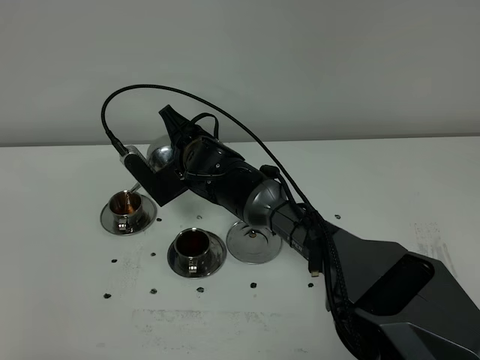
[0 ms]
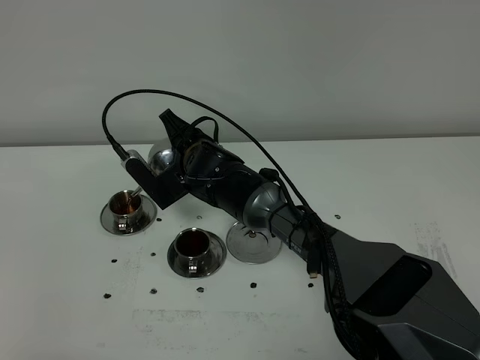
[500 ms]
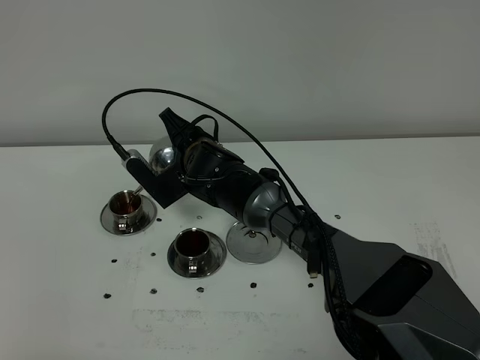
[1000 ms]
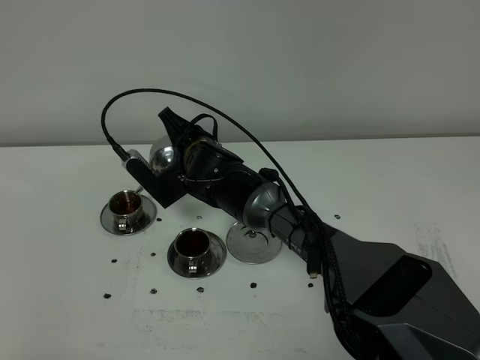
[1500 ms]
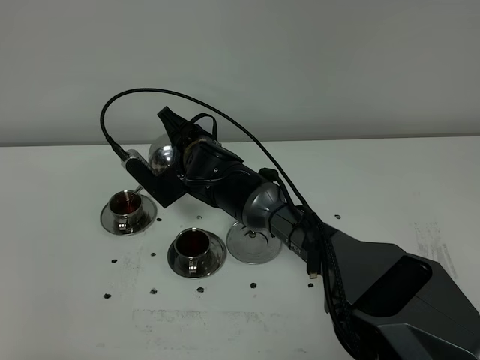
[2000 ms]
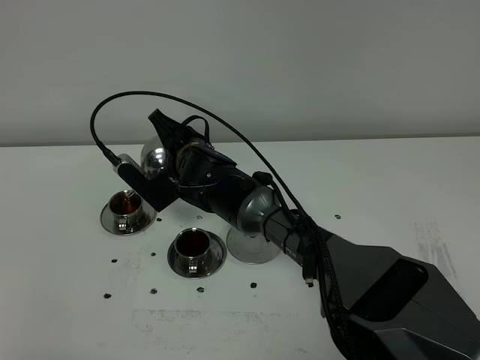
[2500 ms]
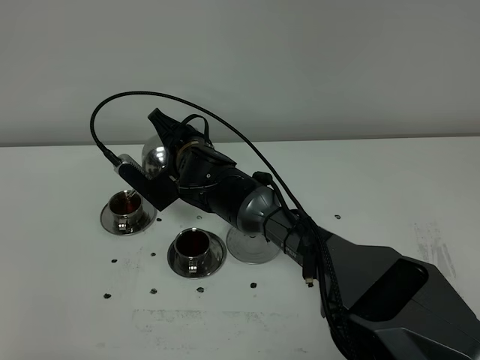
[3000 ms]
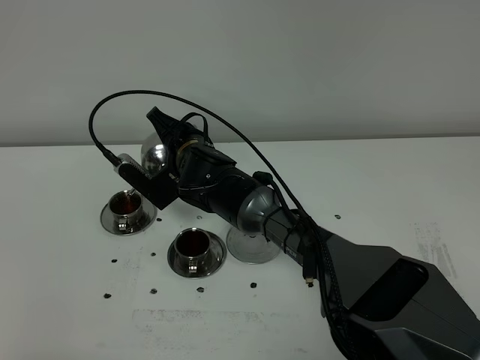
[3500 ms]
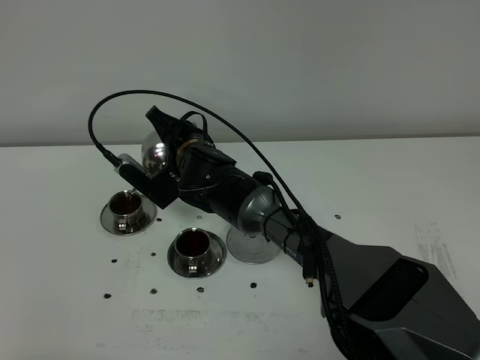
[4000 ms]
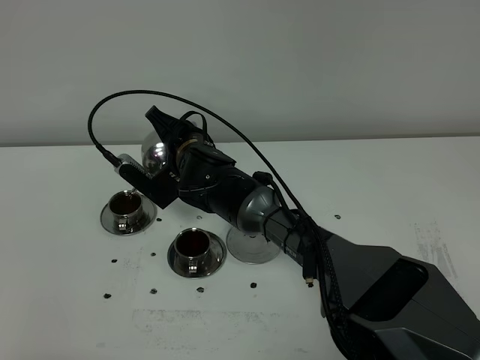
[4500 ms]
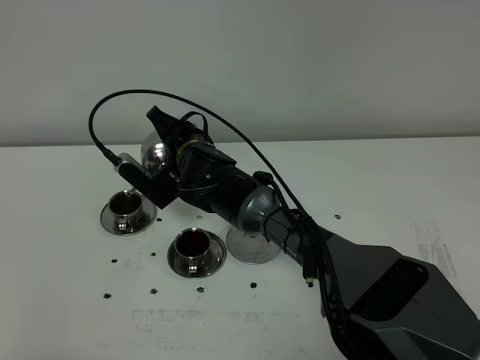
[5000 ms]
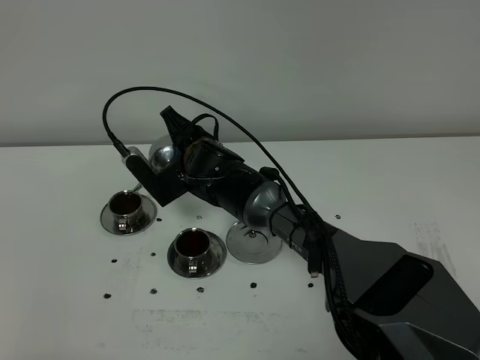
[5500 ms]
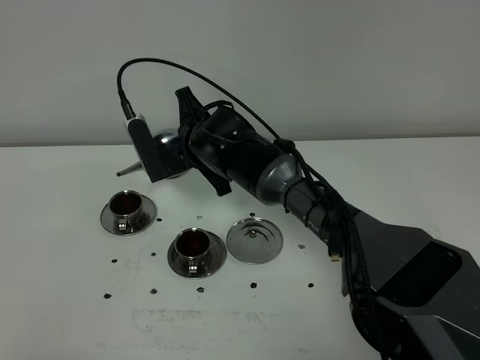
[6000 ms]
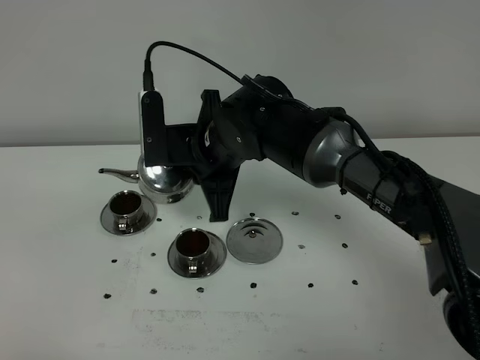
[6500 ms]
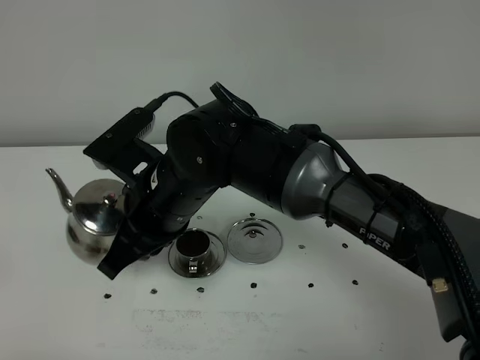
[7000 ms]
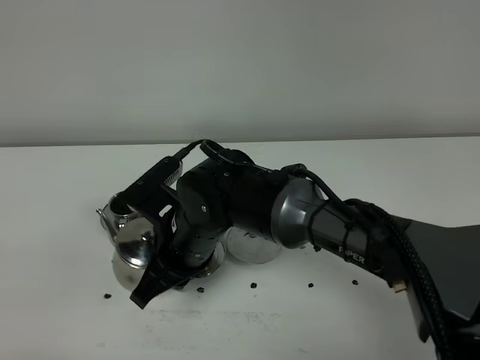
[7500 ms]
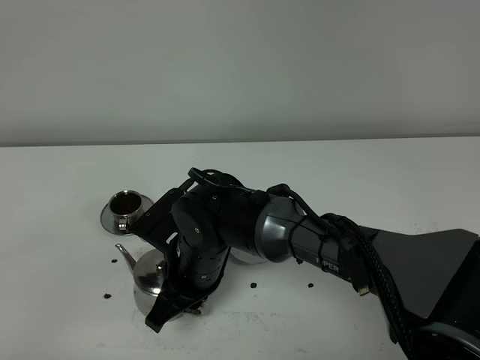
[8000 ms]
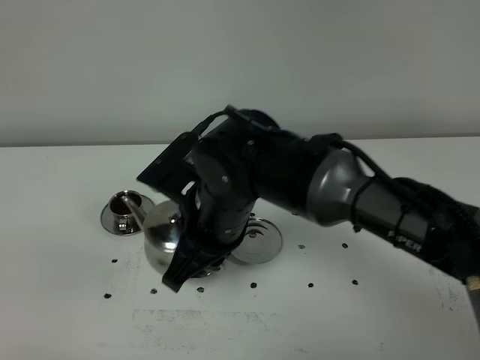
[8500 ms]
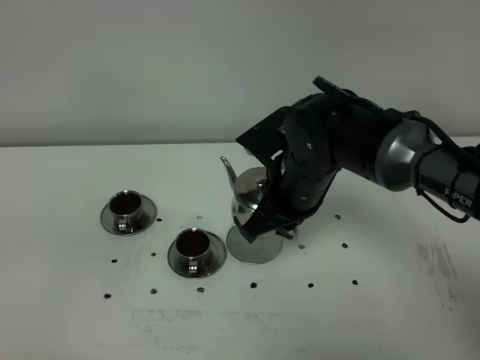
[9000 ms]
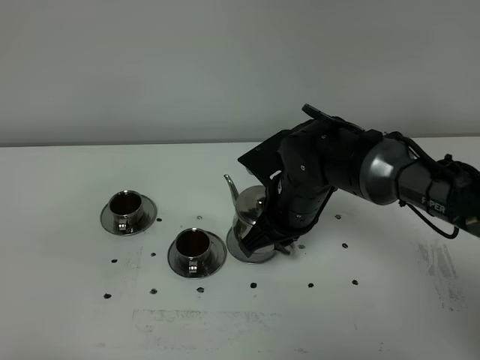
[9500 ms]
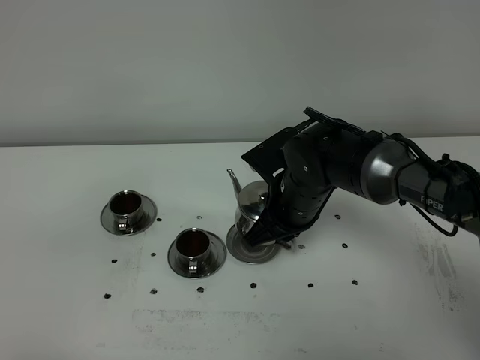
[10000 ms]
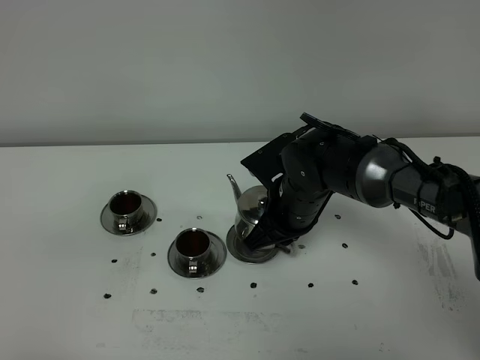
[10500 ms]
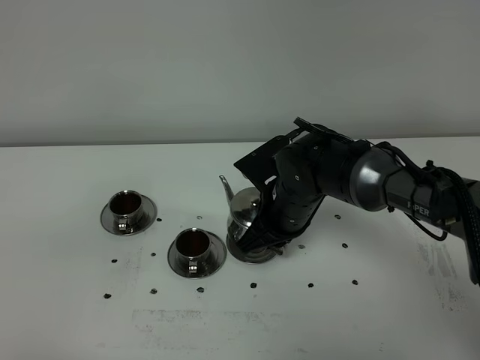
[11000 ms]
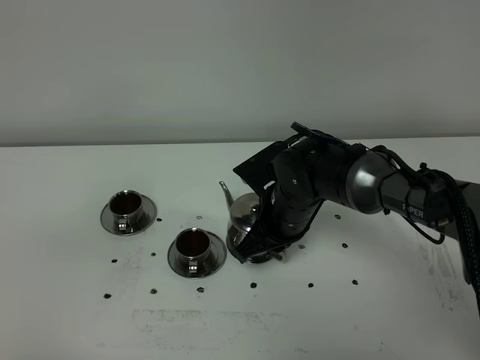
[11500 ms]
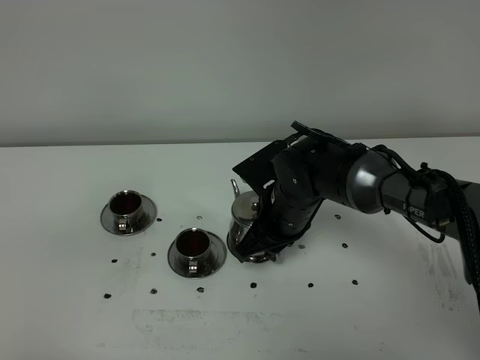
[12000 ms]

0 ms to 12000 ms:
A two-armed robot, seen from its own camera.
Task of the whole recording: grasp the stainless steel teapot and pour the tea into the two stainless steel teacups one by one, put the stainless steel teapot back in its original place.
0 ms to 2000 ms: The two grippers keep their place.
2000 ms to 4000 ms: There are only small adjustments of the grippers.
4000 ms to 6000 ms: The right gripper shifts by approximately 5 cm.
6000 ms to 8000 ms: The right gripper goes some 15 cm backward.
8000 ms to 10000 ms: The right gripper heads to the right and forward, covering about 15 cm.
10000 ms to 12000 ms: The grippers make only small movements.

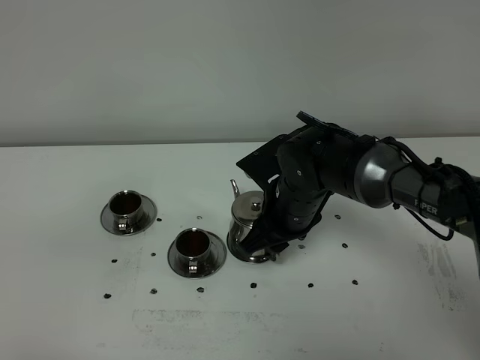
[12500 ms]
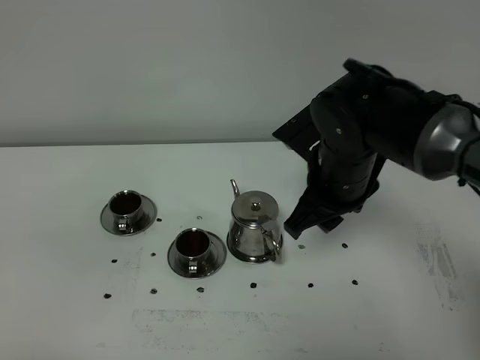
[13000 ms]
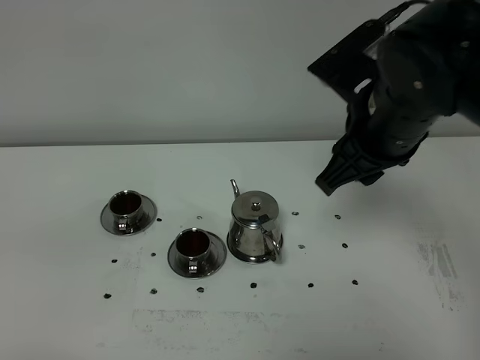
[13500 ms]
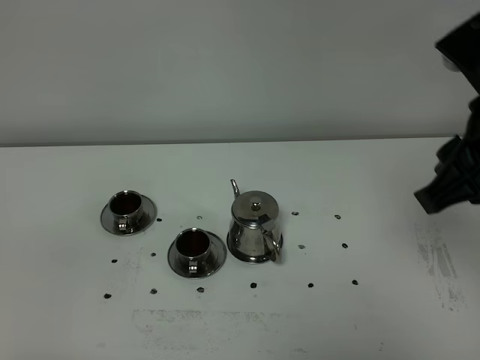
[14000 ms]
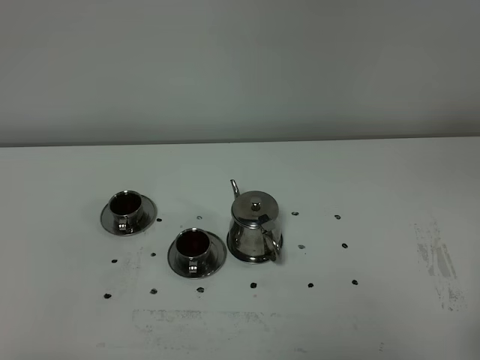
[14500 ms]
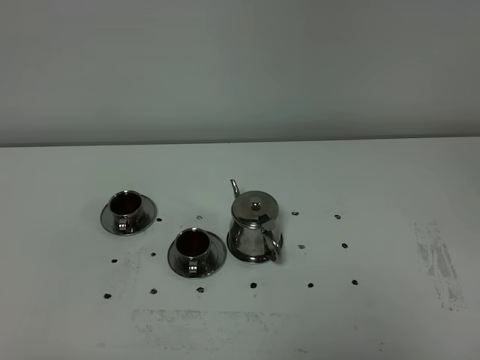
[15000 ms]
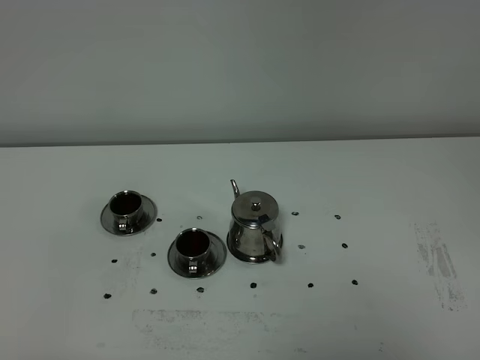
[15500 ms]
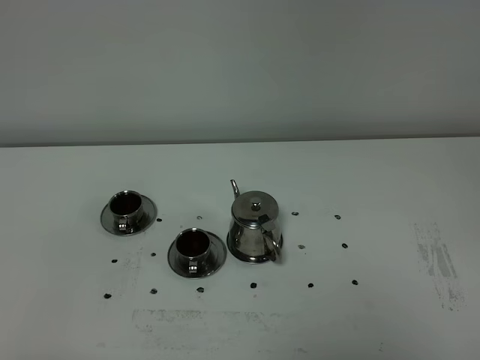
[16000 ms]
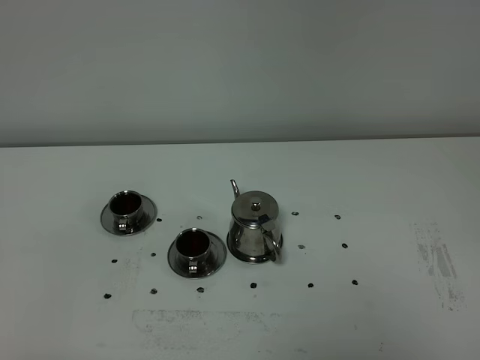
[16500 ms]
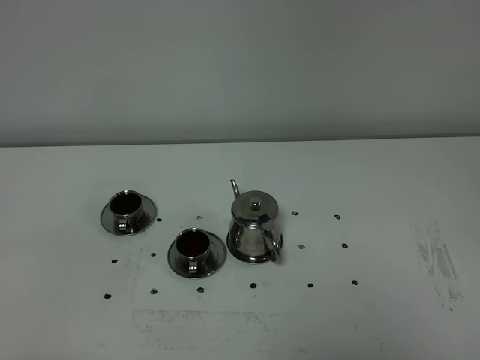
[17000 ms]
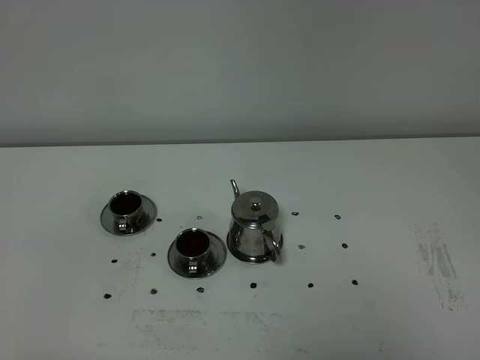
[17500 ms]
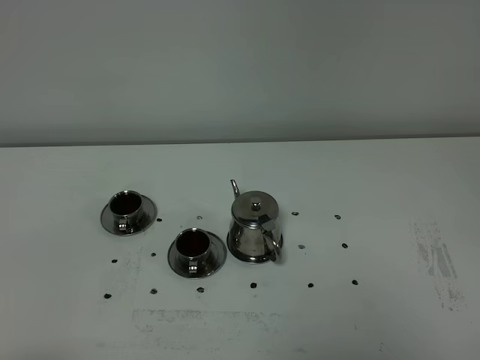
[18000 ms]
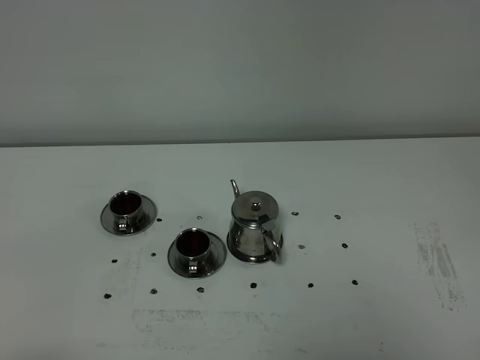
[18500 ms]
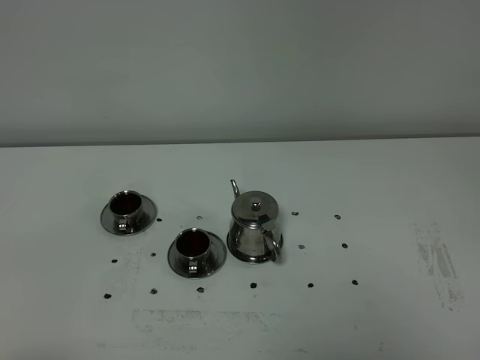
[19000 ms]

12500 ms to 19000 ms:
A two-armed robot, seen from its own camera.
Task of the whole recording: grasp the stainless steel teapot and pour the tea into the two stainless steel teacups one by one, put the stainless steel teapot back in its original place.
12500 ms to 14500 ms: The right gripper is displaced backward, to the right and upward by about 40 cm.

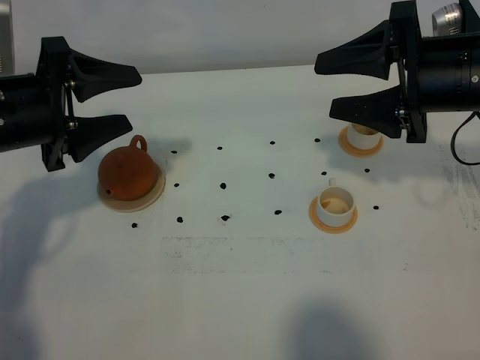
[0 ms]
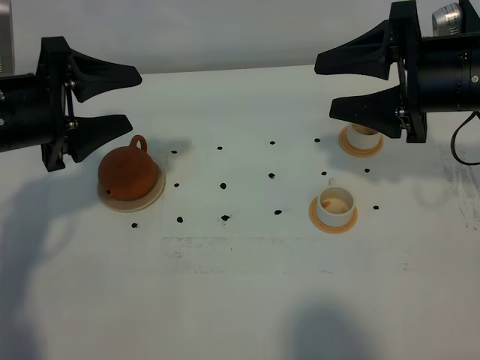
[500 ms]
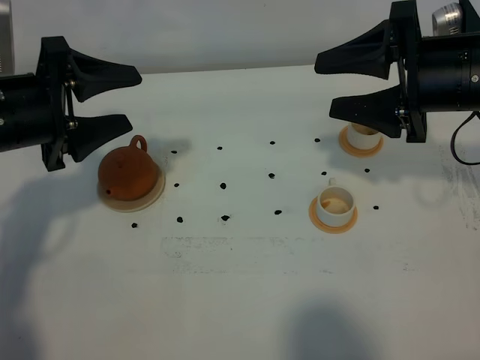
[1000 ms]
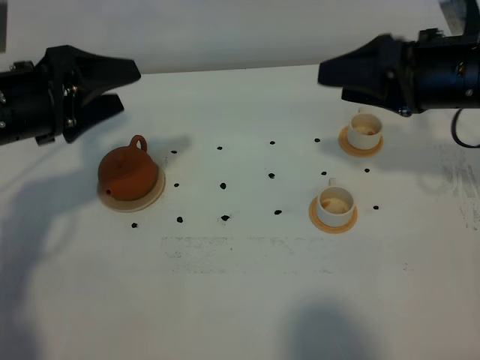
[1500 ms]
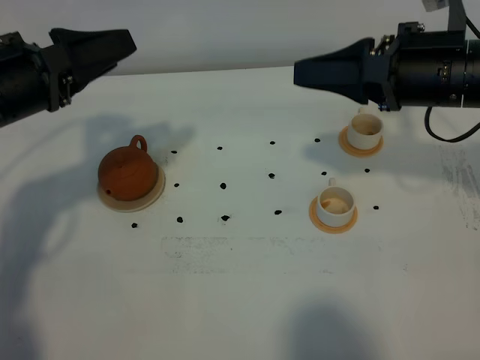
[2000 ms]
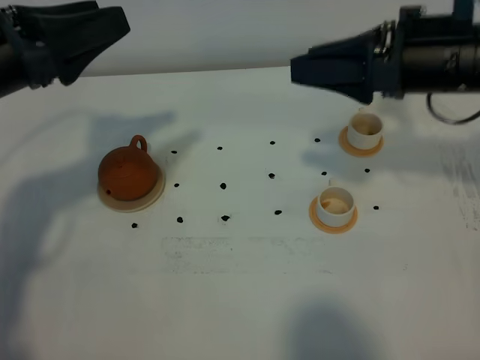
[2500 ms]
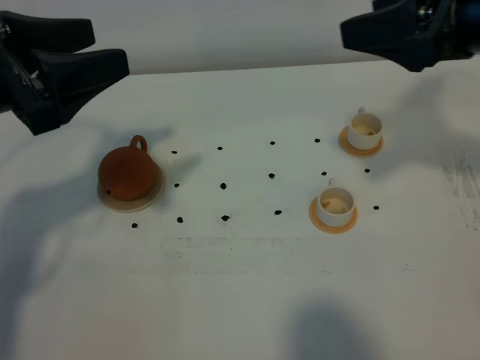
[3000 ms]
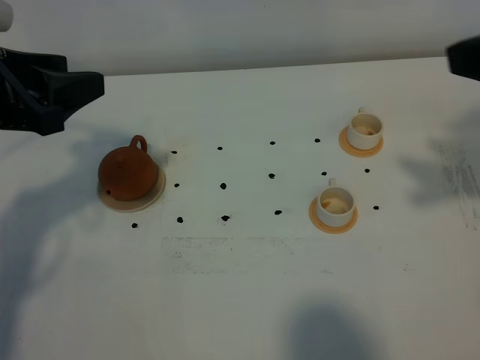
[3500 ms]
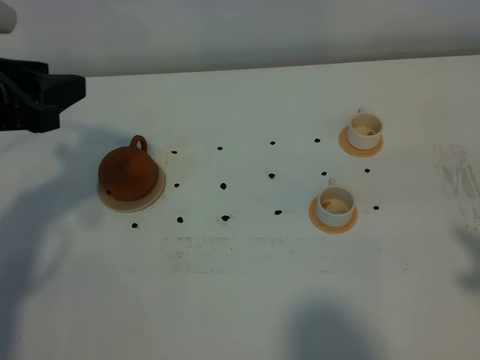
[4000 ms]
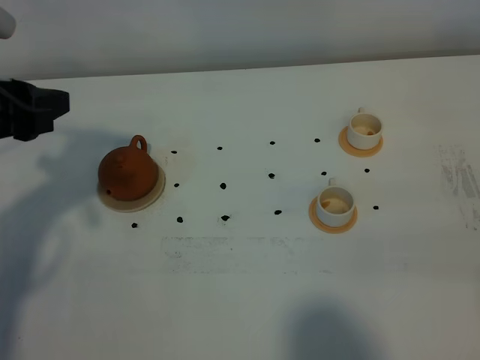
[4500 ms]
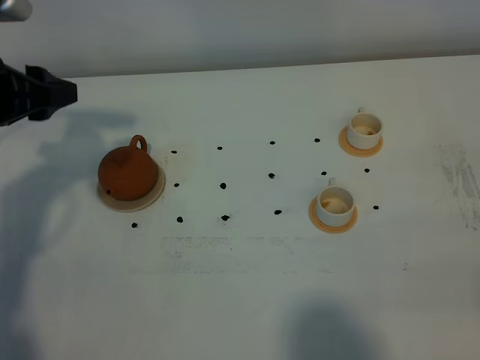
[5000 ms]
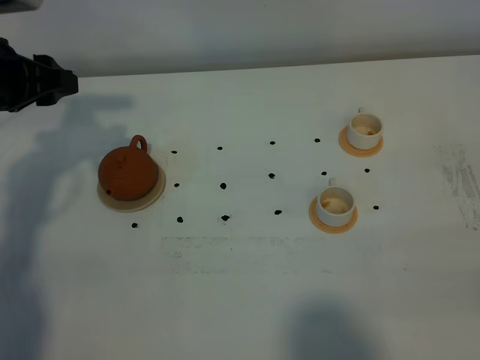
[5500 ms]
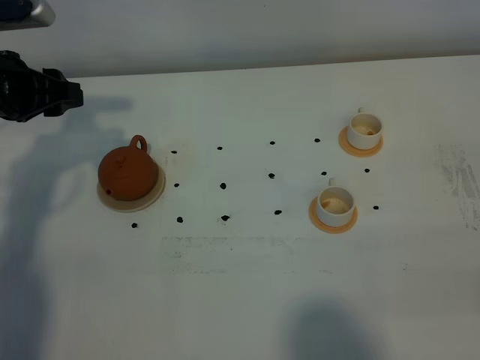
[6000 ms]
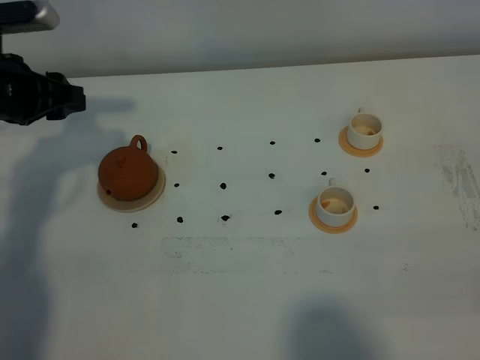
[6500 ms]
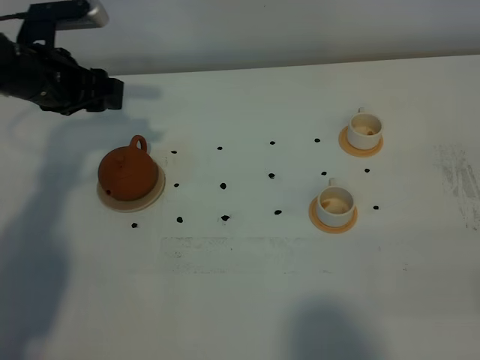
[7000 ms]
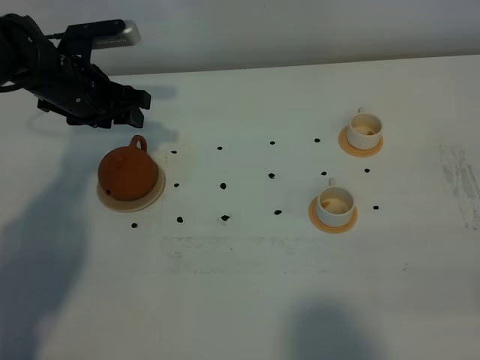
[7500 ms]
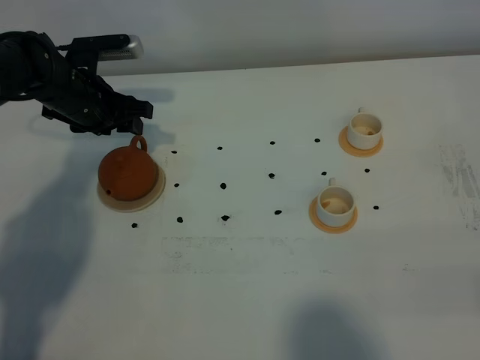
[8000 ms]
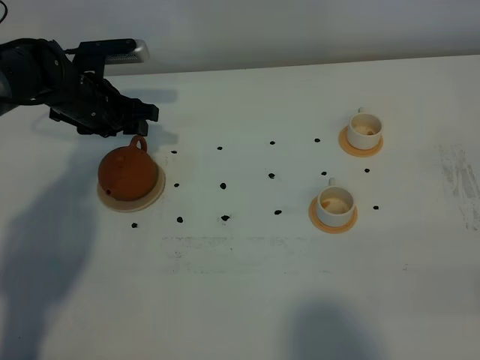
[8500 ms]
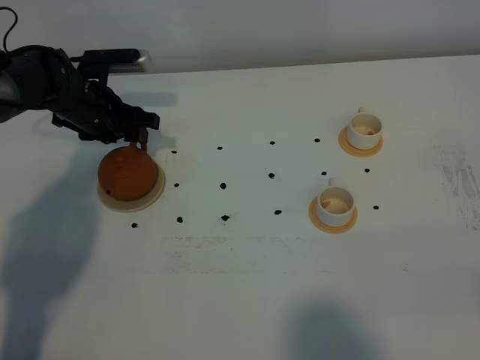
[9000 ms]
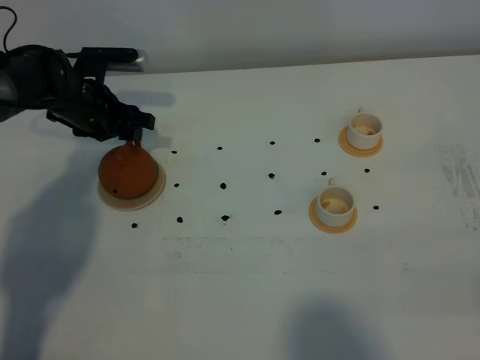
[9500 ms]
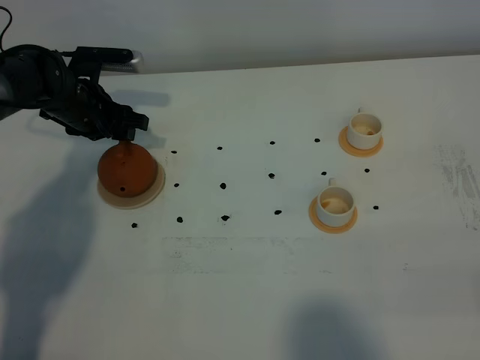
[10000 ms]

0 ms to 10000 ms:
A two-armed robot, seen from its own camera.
Task of the whole recording: grasp the brown teapot and pour the tea into the two white teacups one by one, put the brown teapot back in its original place.
2000 ms to 4000 ms: The left gripper ends up approximately 5 cm from where it was; the right gripper heads backward, covering some 25 cm, and closes its fingers.
4000 ms to 6000 ms: The left gripper is displaced forward and downward by some 10 cm.
6000 ms to 8000 ms: The left gripper travels downward, forward and to the right by about 15 cm.
8000 ms to 10000 ms: The grippers move only a little.
